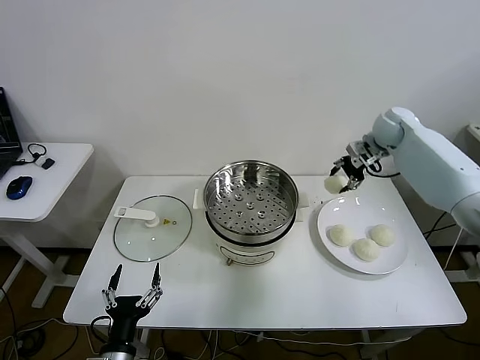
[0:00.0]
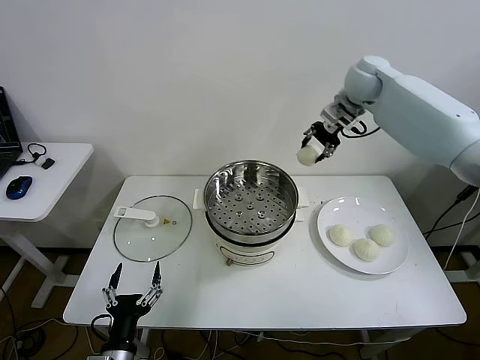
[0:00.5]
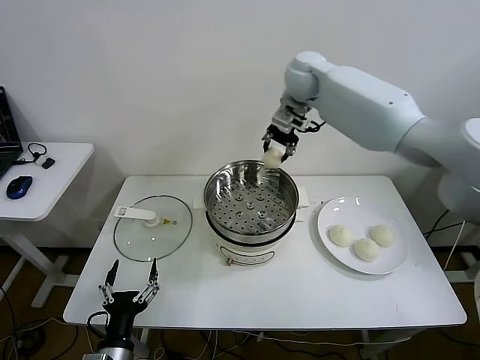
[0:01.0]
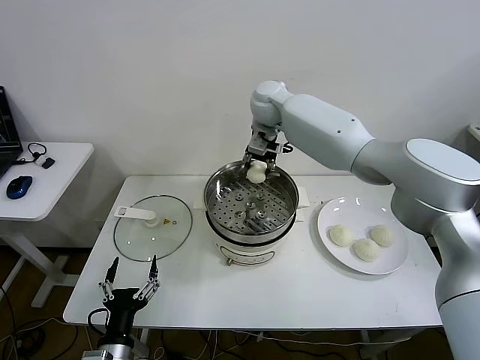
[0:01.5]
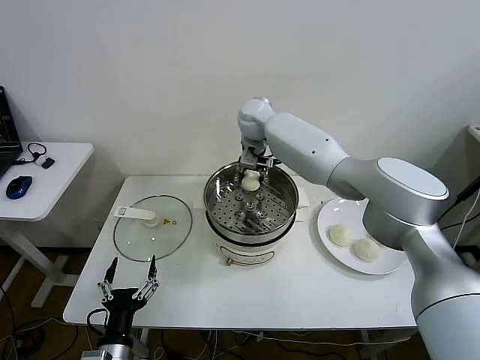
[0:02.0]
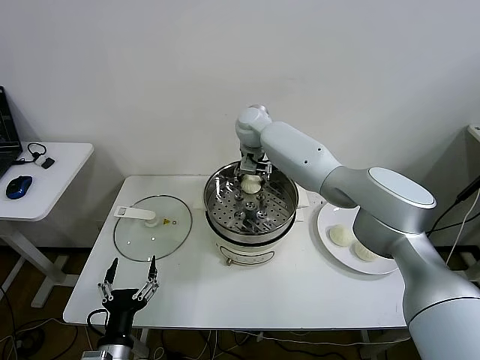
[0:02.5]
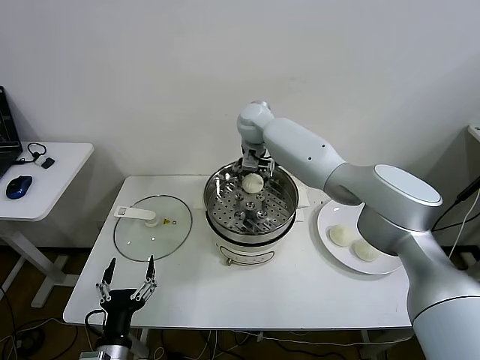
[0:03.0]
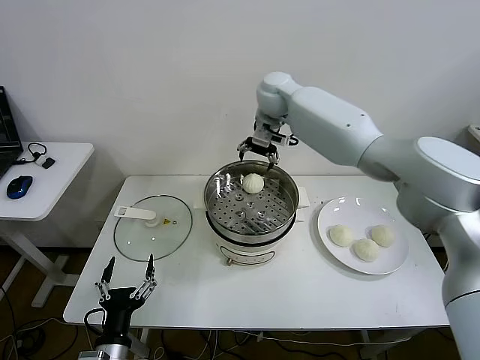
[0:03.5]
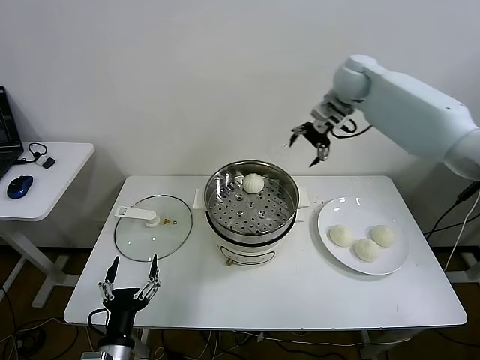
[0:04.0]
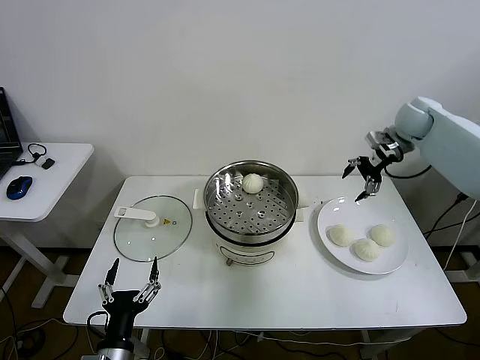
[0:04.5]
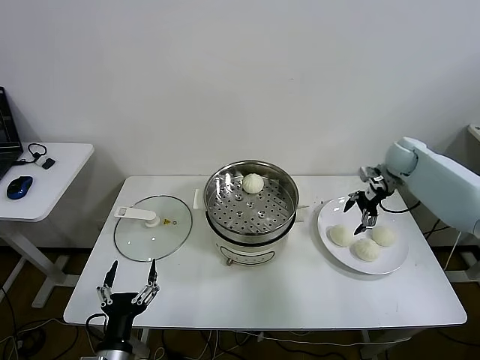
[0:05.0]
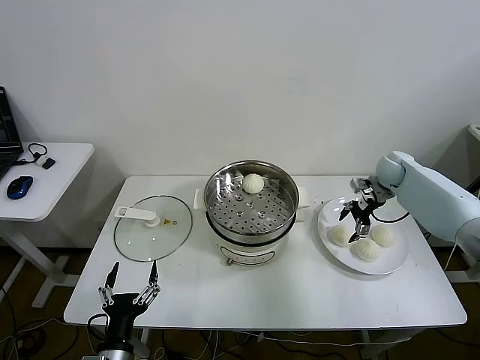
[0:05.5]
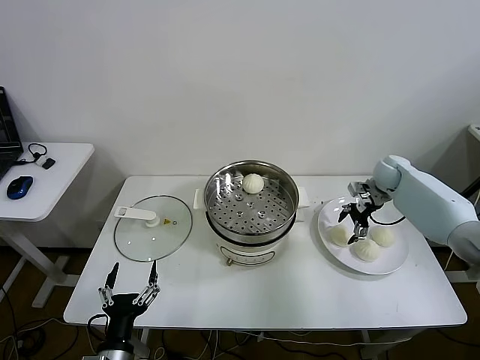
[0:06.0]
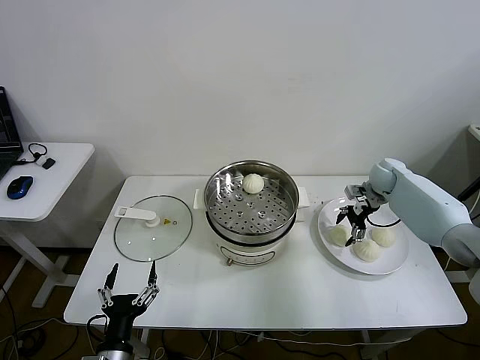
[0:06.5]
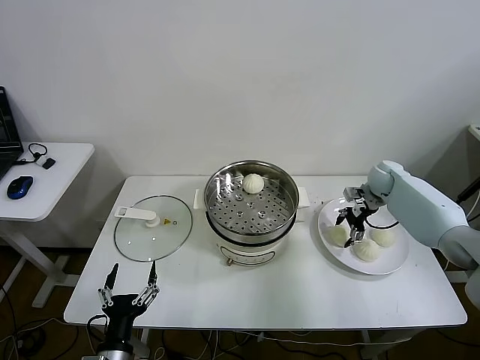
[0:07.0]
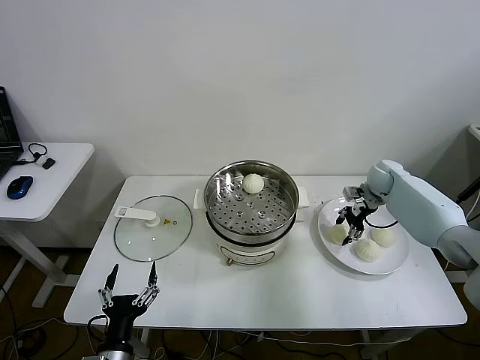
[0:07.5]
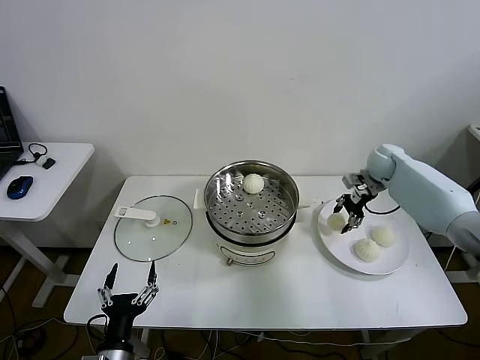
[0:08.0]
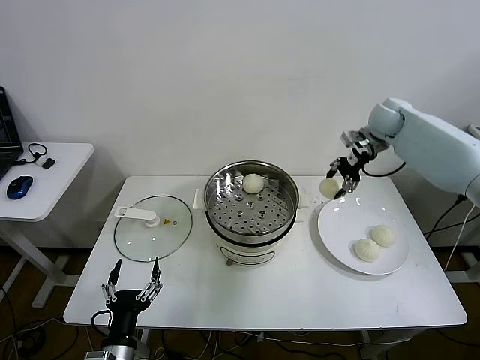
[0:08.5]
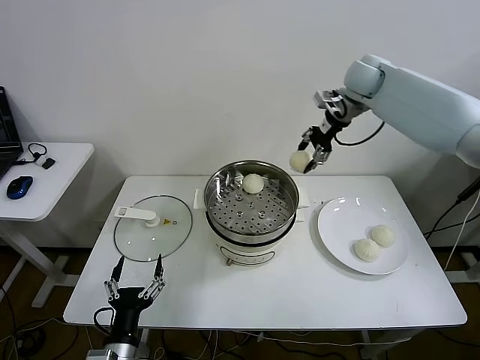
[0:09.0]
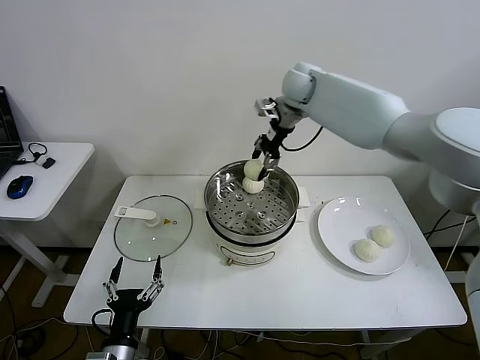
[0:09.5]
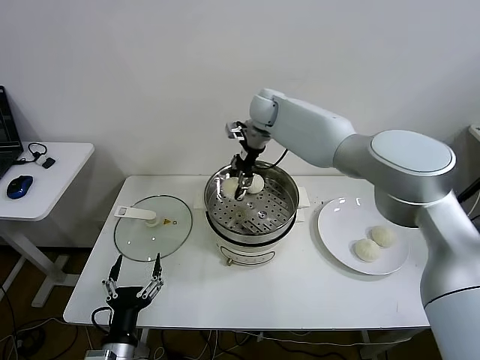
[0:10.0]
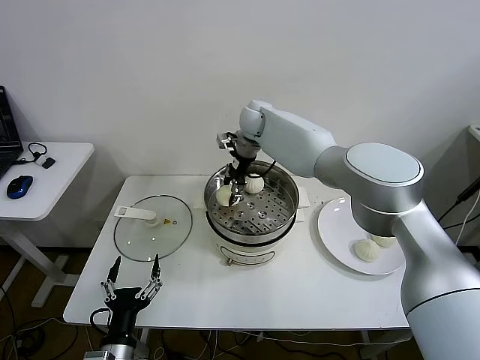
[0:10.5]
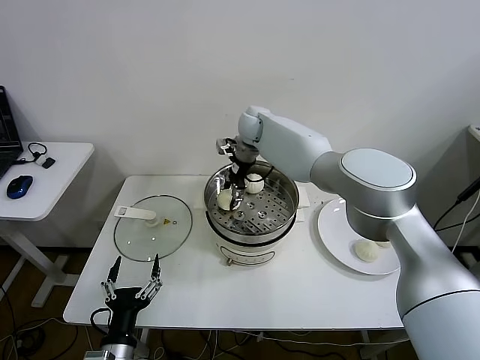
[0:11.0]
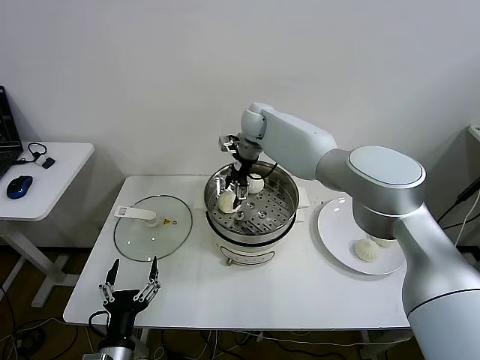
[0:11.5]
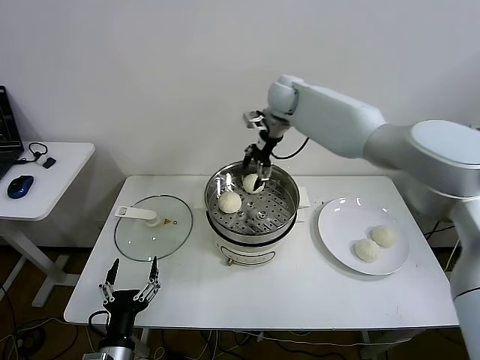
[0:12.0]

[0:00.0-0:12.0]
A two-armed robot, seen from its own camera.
Step, 0:00.0 to 0:03.0: Place the baozi on the steamer with right gripper.
Step, 0:03.5 to 0:07.0: Grasp the baozi in the plate with right gripper.
Step, 0:07.5 to 0:11.5: Place the baozi on the steamer with right gripper.
0:00.0 to 0:02.0: The right gripper travels to the left by roughly 30 cm.
0:02.0 to 0:04.0: The right gripper goes some 25 cm to the right, and opens its fingers.
0:04.0 to 0:06.0: The right gripper moves downward and to the right, roughly 25 cm.
0:06.0 to 0:08.0: The right gripper travels upward by roughly 5 cm, and closes its fingers.
0:08.0 to 0:10.0: The right gripper travels to the left by some 35 cm.
0:10.0 to 0:12.0: The right gripper is displaced to the right and upward by approximately 10 cm, and opens.

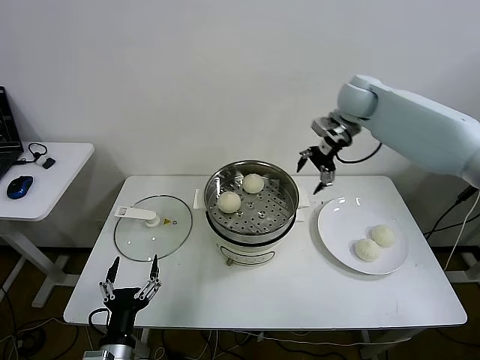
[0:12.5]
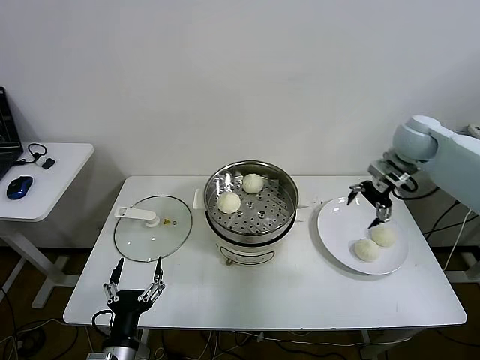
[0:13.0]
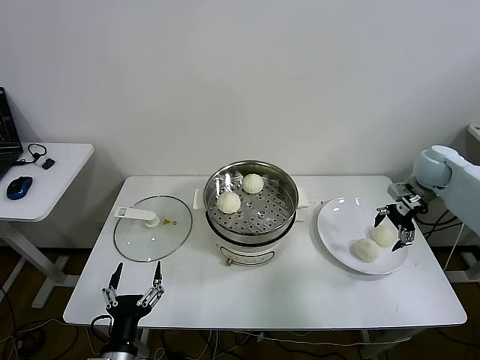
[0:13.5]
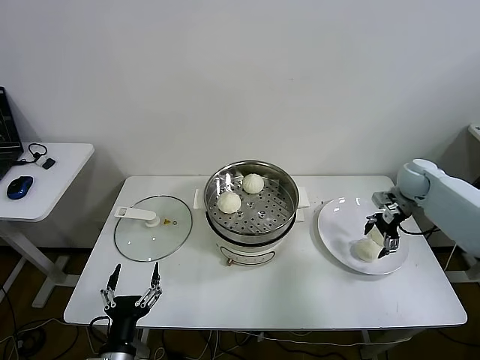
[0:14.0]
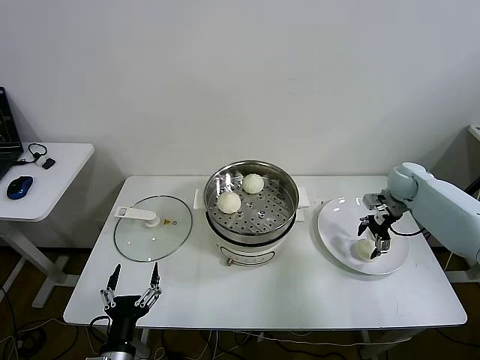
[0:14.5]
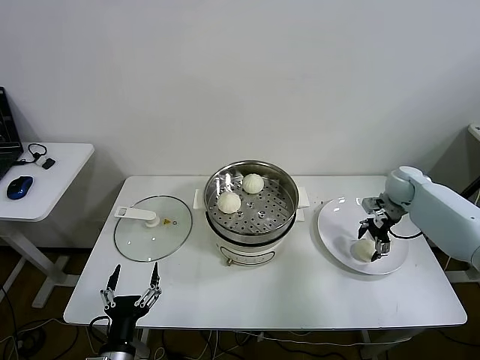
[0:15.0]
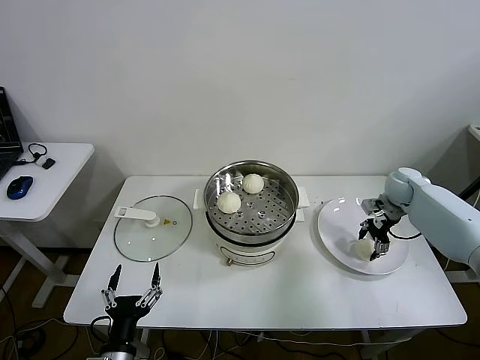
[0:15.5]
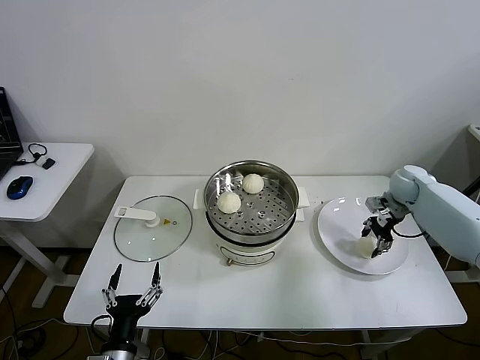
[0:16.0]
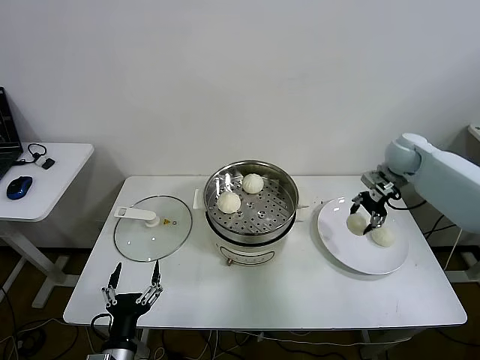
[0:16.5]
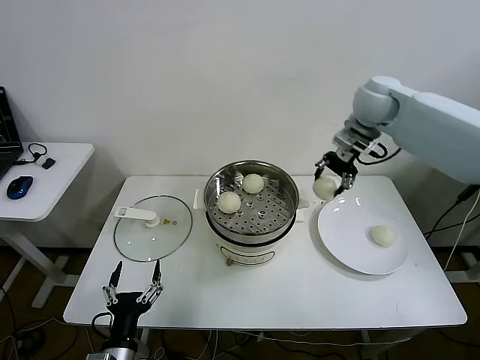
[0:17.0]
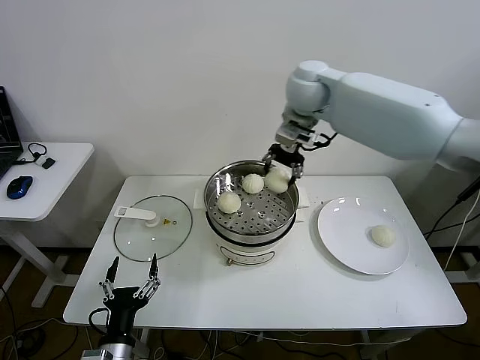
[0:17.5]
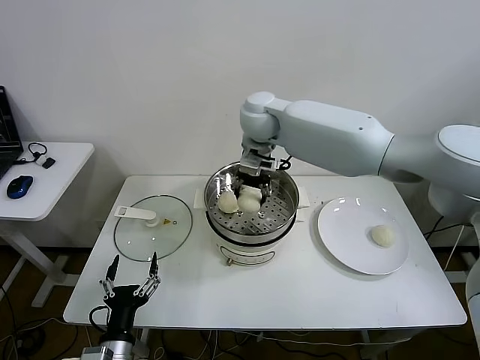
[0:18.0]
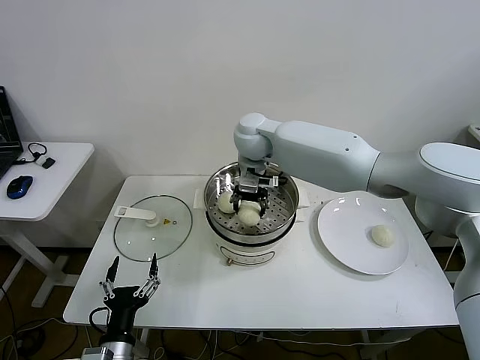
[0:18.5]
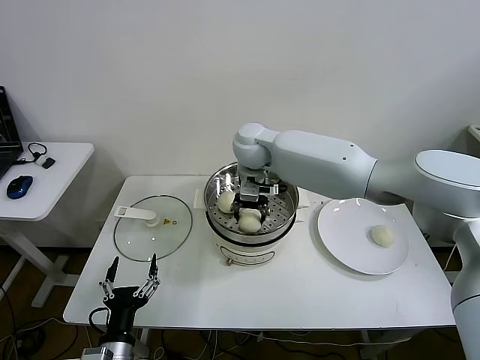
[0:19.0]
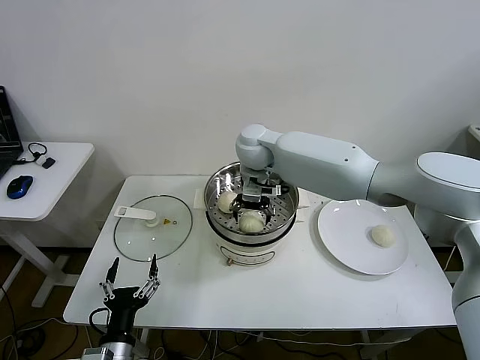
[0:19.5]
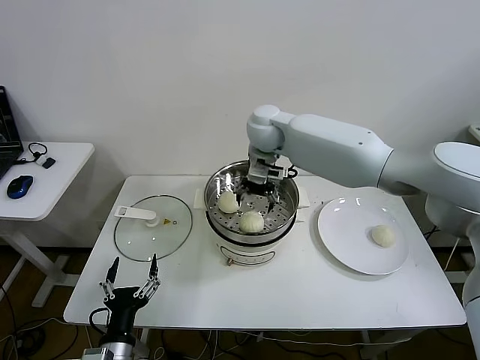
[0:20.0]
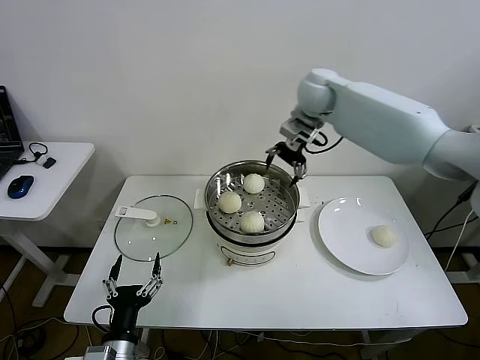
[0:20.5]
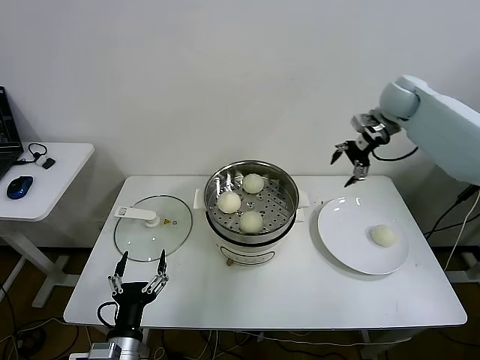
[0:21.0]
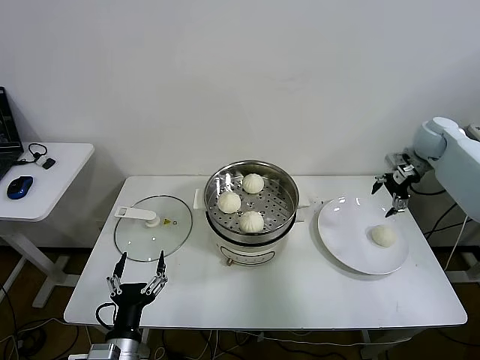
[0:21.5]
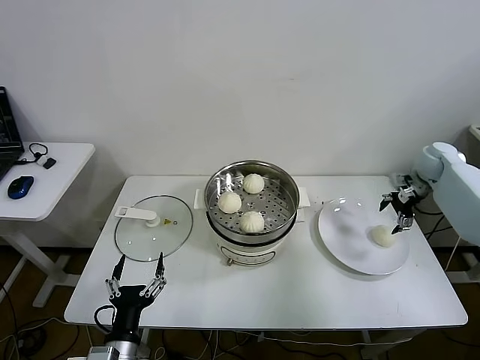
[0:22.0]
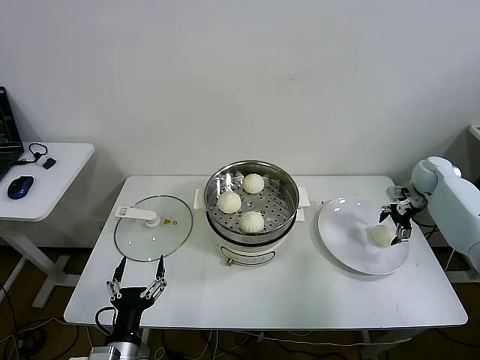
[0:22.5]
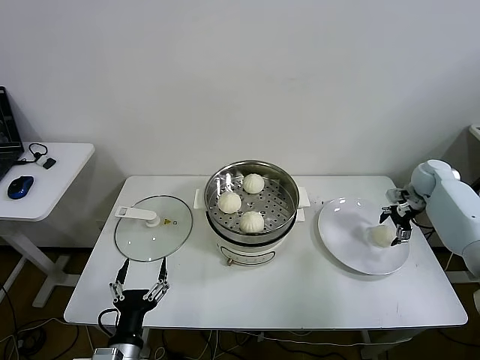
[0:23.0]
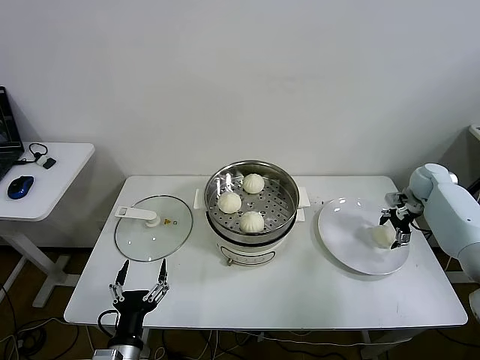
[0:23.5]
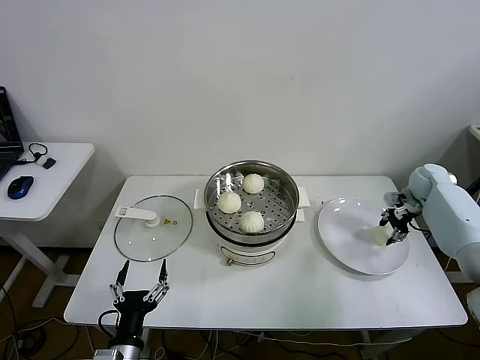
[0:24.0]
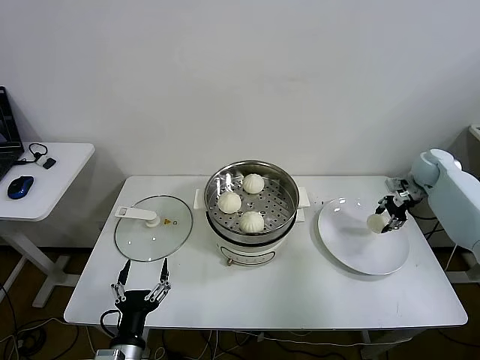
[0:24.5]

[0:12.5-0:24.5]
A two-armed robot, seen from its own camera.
Step, 0:12.5 to 0:15.5: Grasp the baozi in the plate with right gripper.
Step, 0:16.5 to 0:19.0: Place the baozi on the steamer with right gripper.
Step, 0:19.5 to 0:23.5: Grasp the baozi in the plate with right gripper.
0:12.5 to 0:14.5: The right gripper moves downward and to the right, some 25 cm.
0:14.5 to 0:16.5: The right gripper goes roughly 10 cm upward, and closes its fingers.
0:16.5 to 0:18.5: The right gripper shifts about 35 cm to the left.
0:18.5 to 0:20.5: The right gripper is displaced to the right and upward by roughly 15 cm, and opens up.
0:20.5 to 0:22.5: The right gripper goes some 40 cm to the right and downward.
0:22.5 to 0:24.5: The right gripper closes its fingers.

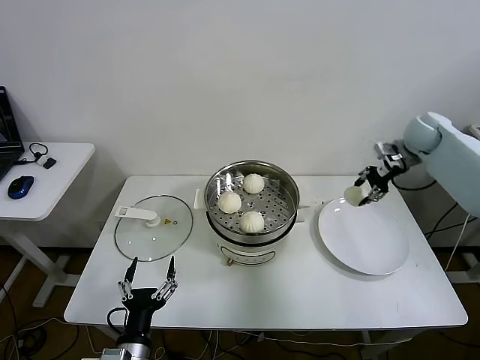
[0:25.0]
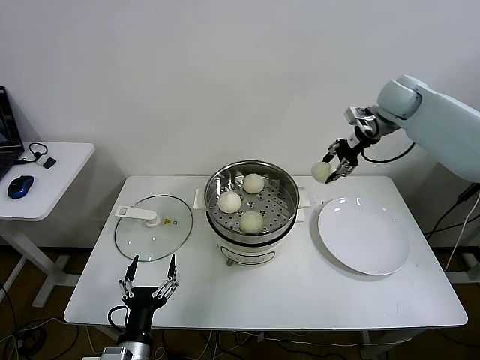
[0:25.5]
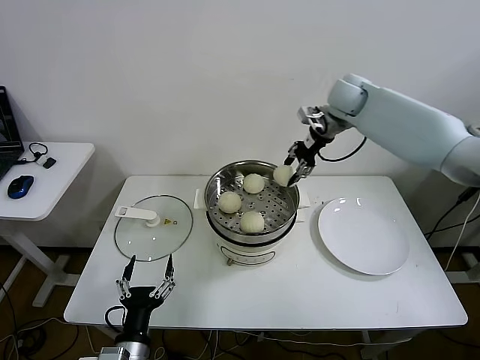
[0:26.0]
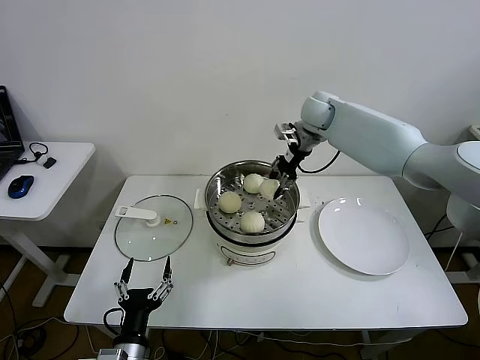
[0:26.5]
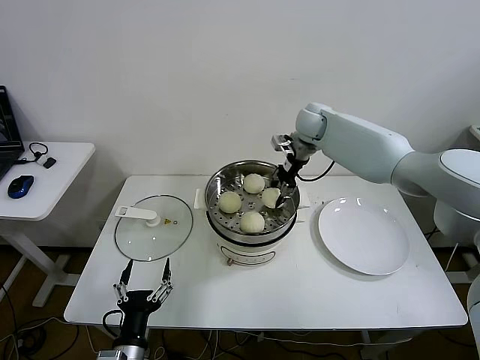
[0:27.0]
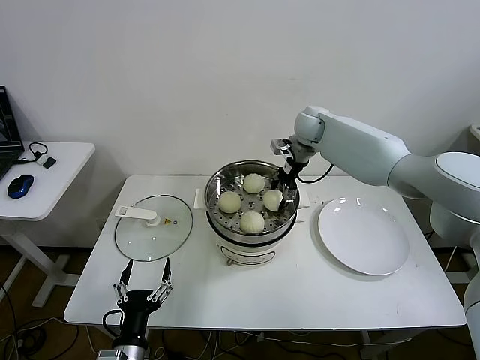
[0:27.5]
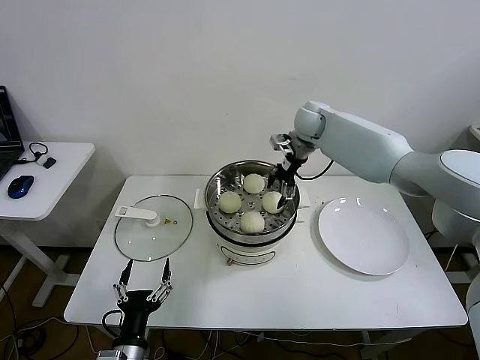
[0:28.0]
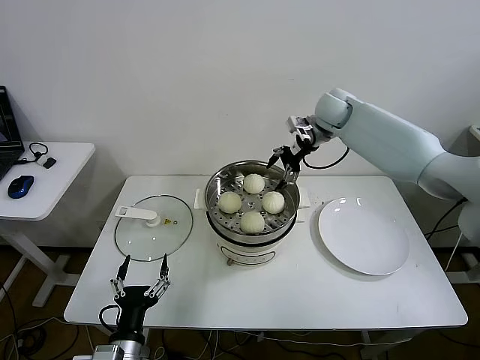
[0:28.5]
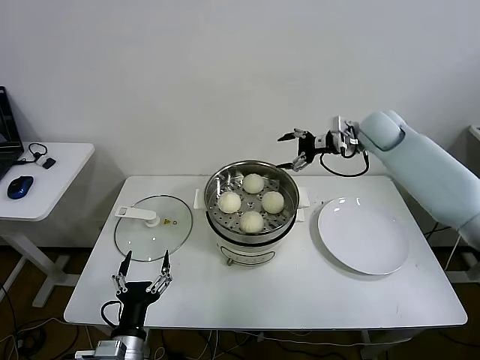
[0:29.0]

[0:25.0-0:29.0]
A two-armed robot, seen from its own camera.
Step, 0:25.0 to 0:27.5: Place the baozi on the steamer with right gripper.
0:25.0 to 0:27.0: The right gripper shifts some 25 cm to the left.
0:27.0 to 0:29.0: The right gripper moves to the right and backward, approximately 15 cm, and opens its fingers.
